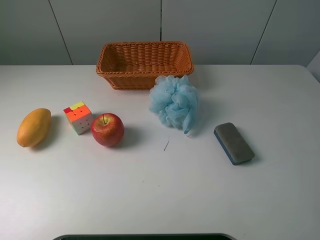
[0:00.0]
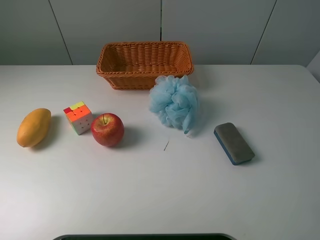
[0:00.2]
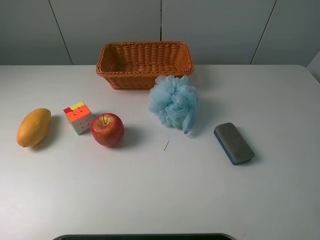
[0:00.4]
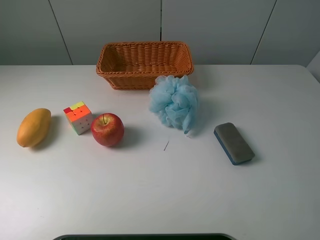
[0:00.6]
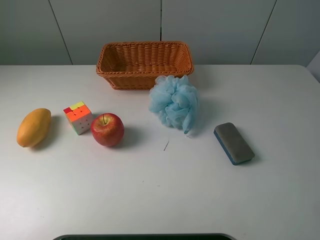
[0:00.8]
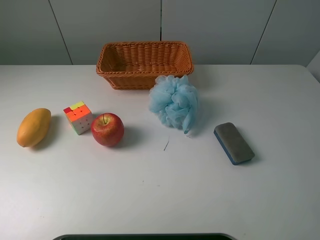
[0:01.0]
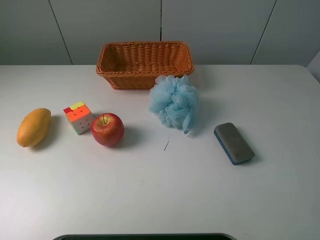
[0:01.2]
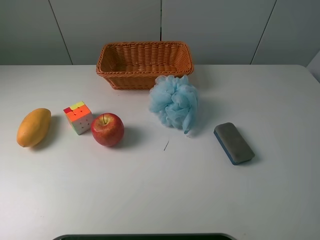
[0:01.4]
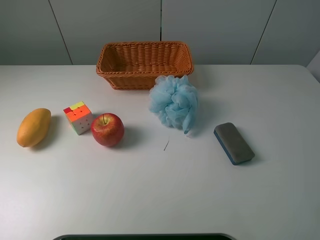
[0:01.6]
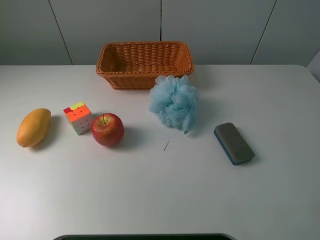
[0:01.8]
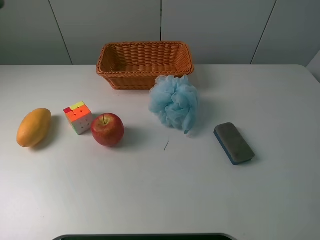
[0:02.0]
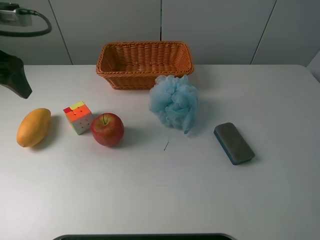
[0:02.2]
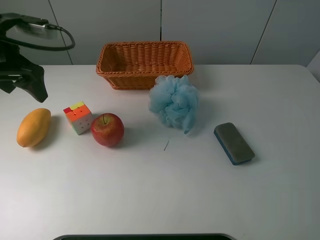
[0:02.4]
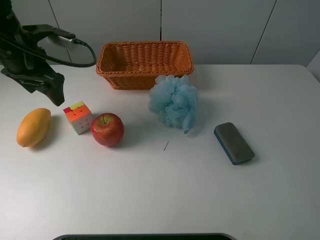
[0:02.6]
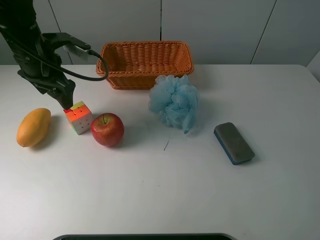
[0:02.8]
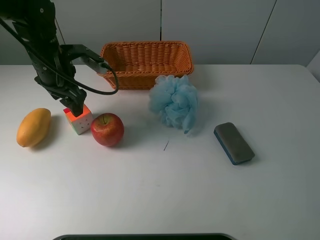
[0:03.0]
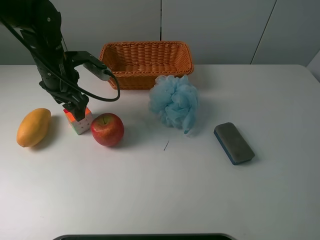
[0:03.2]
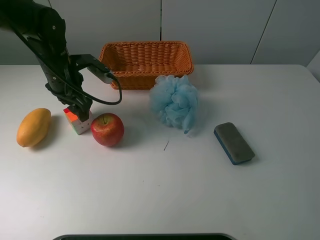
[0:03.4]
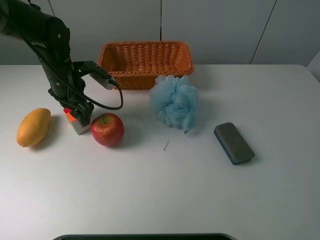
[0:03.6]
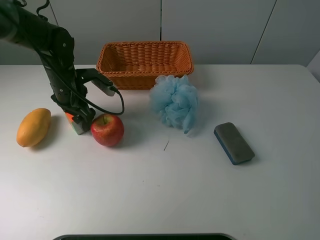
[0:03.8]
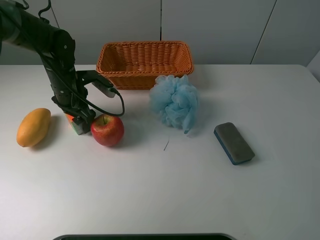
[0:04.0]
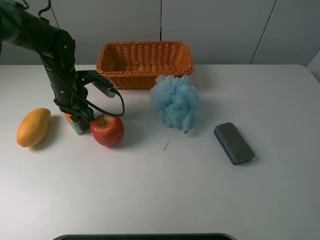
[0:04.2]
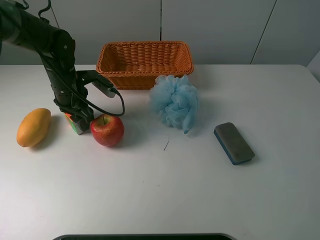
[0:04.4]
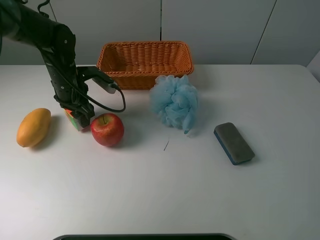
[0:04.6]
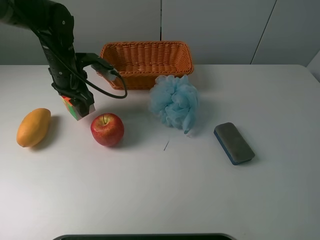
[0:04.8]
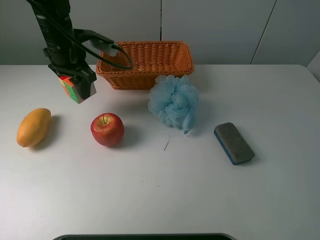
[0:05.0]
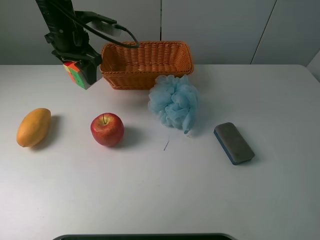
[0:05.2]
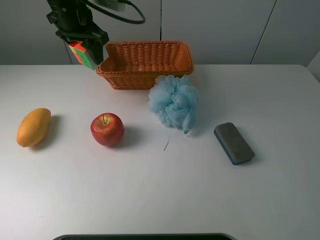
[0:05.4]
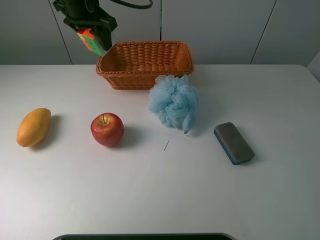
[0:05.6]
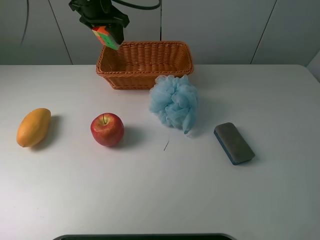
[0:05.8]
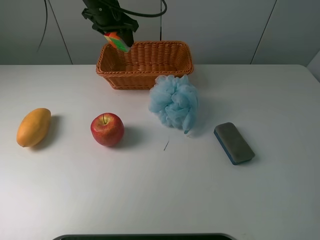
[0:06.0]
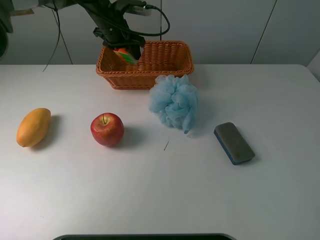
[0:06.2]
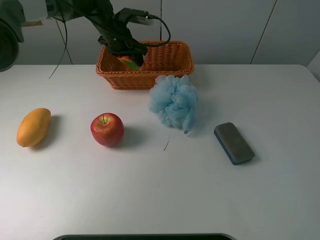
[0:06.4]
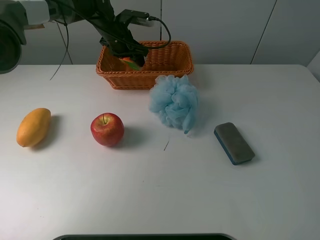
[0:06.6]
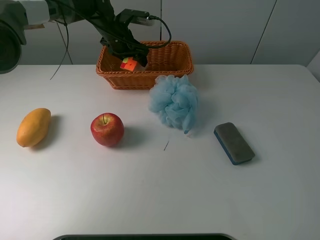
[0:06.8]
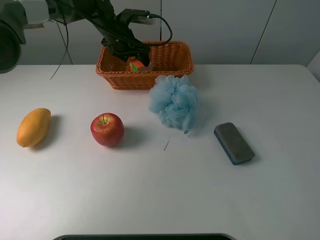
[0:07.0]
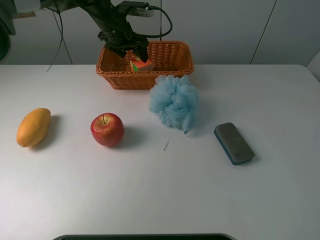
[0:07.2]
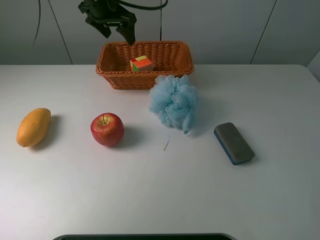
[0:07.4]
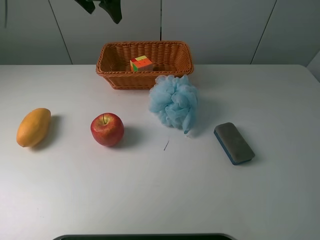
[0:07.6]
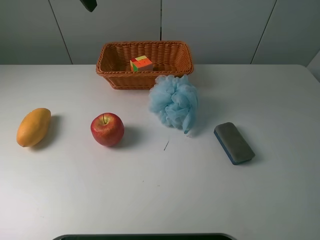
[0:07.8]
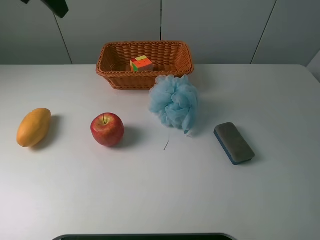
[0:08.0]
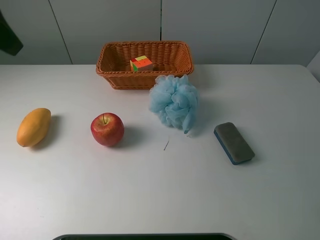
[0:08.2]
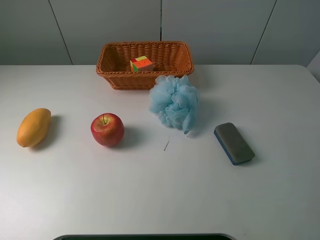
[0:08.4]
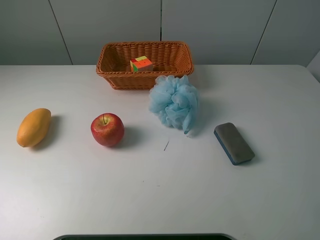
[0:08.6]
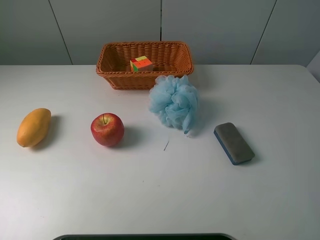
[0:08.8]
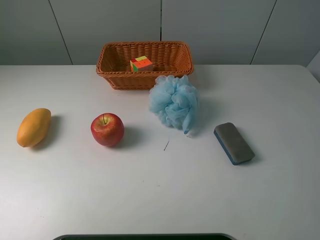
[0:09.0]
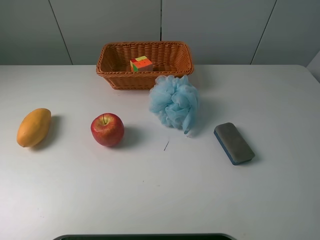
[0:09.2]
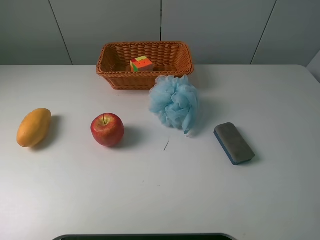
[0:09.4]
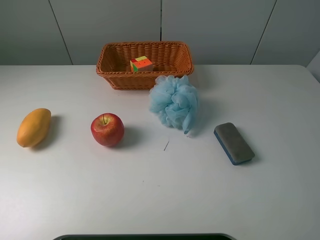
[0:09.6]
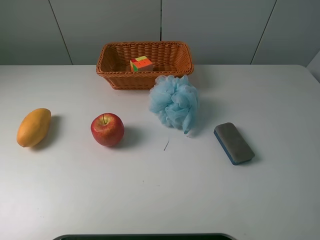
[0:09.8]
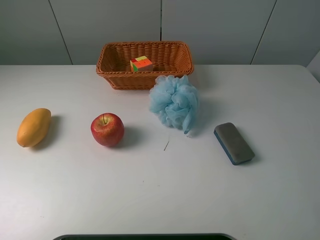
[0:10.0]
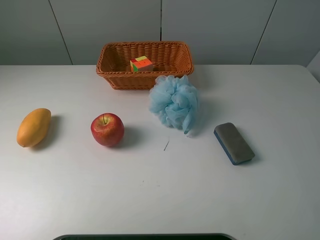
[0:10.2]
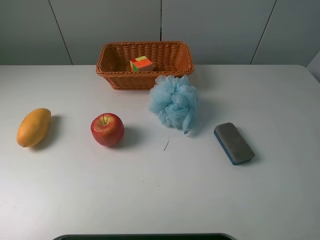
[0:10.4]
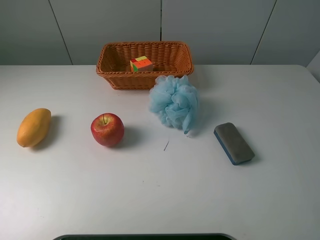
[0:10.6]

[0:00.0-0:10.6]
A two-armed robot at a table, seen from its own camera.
Task of the whole recording: use a picker to grab the item closest to the apple and place it in the basket.
Step, 0:00.0 to 0:04.4: Grasp the Rubik's Cube with the left gripper.
Step, 0:04.6 to 0:07.2: Place the Rubik's Cube into the basket with the left gripper.
0:01.6 to 0:03.0: The left gripper heads forward, downward and to the right, covering about 30 cm.
0:03.0 to 0:04.6: The left gripper shifts about 5 cm downward, and closes.
0:04.6 to 0:06.0: The left gripper heads upward, forward and to the right, covering approximately 20 cm.
0:06.0 to 0:07.6: The left gripper moves upward, roughly 10 cm, and opens up.
0:07.6 to 0:09.0: The left gripper heads backward and to the left, covering some 40 cm.

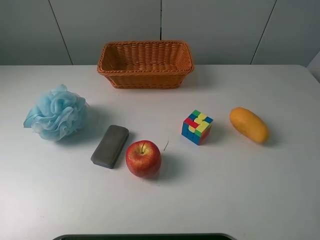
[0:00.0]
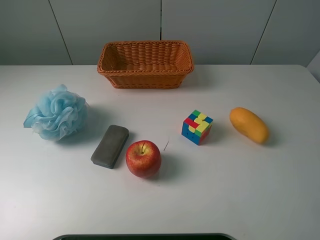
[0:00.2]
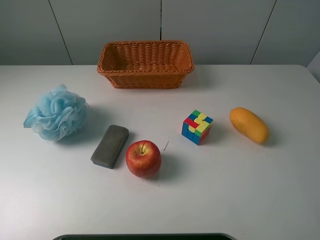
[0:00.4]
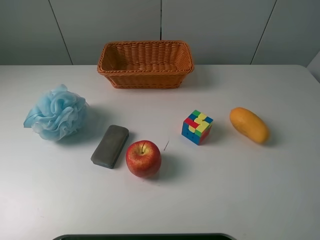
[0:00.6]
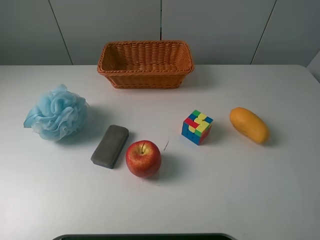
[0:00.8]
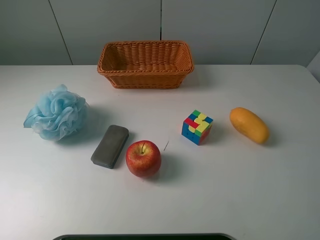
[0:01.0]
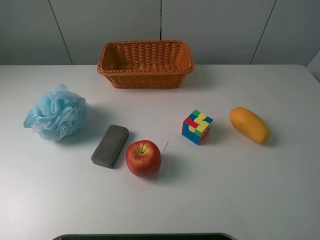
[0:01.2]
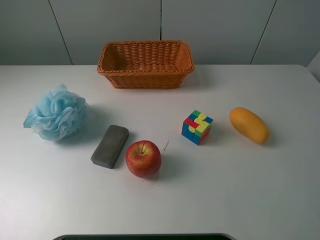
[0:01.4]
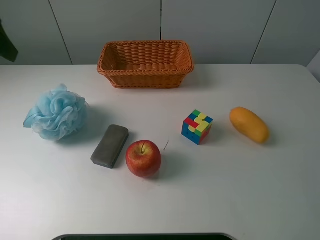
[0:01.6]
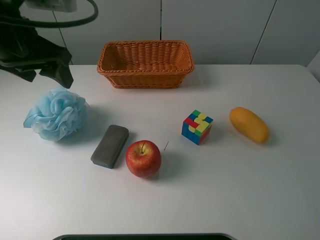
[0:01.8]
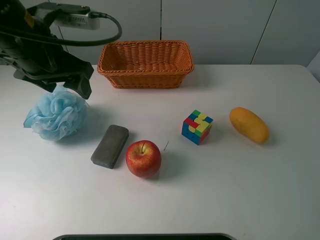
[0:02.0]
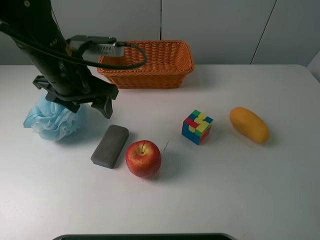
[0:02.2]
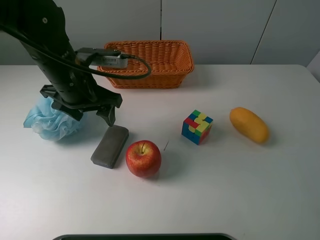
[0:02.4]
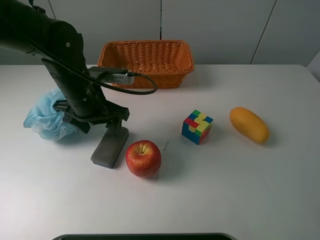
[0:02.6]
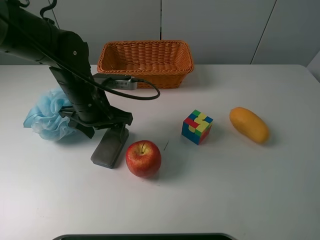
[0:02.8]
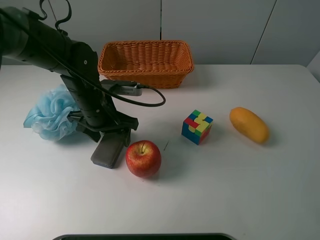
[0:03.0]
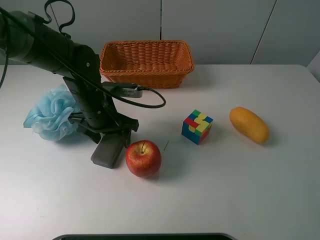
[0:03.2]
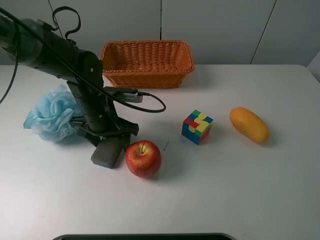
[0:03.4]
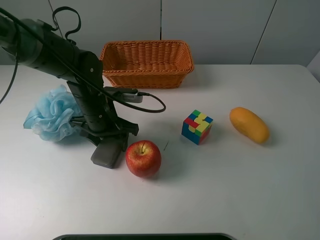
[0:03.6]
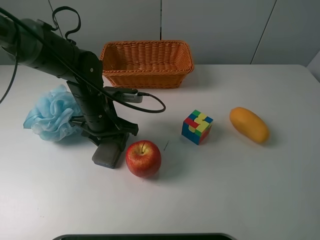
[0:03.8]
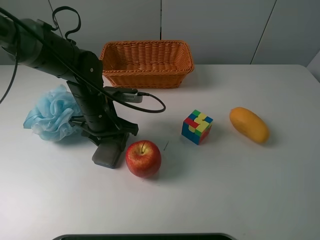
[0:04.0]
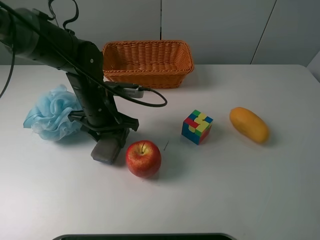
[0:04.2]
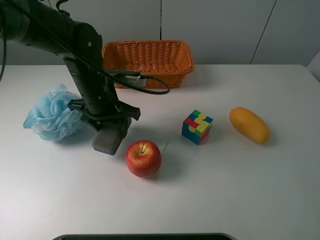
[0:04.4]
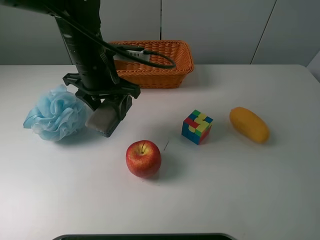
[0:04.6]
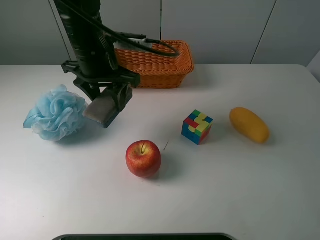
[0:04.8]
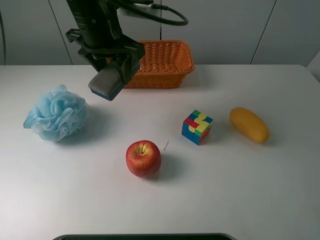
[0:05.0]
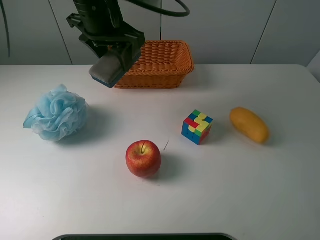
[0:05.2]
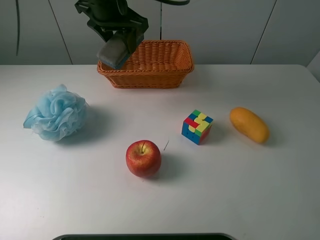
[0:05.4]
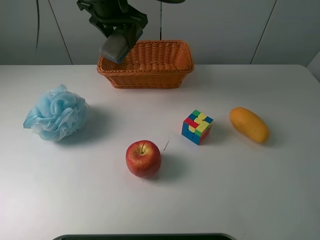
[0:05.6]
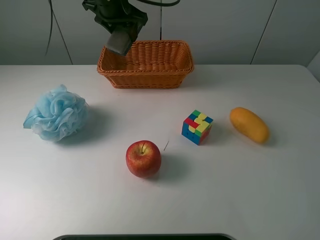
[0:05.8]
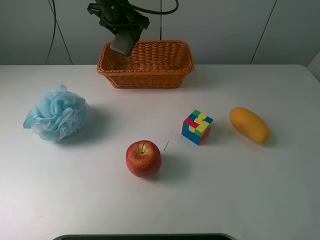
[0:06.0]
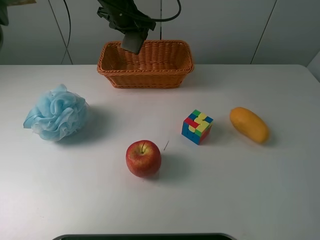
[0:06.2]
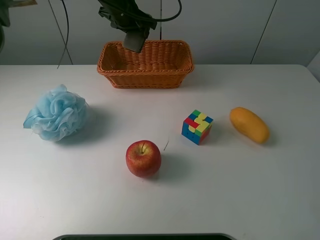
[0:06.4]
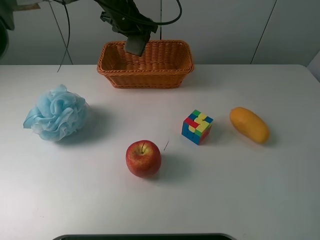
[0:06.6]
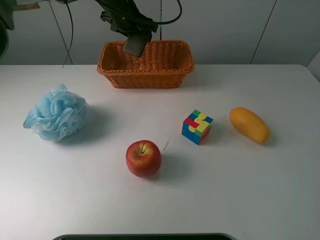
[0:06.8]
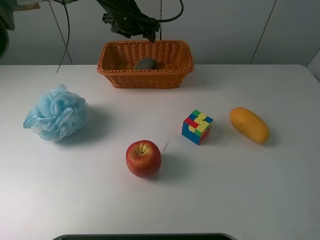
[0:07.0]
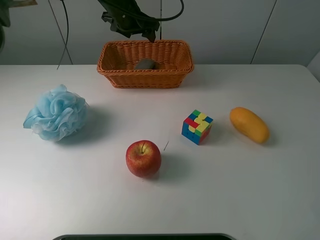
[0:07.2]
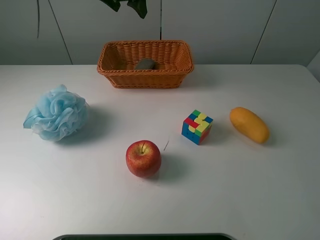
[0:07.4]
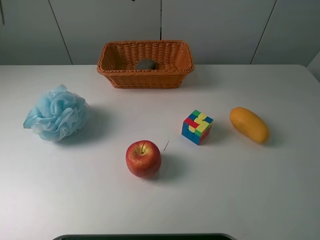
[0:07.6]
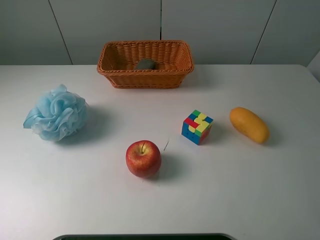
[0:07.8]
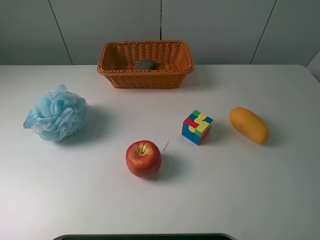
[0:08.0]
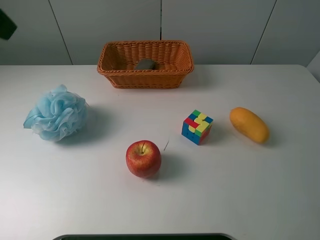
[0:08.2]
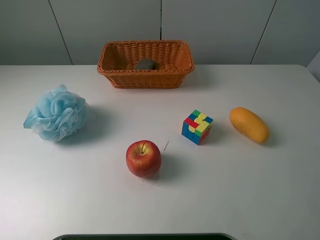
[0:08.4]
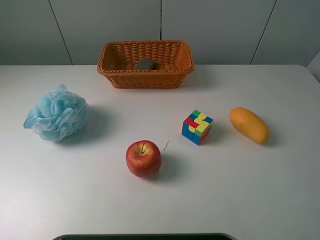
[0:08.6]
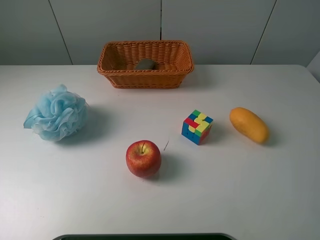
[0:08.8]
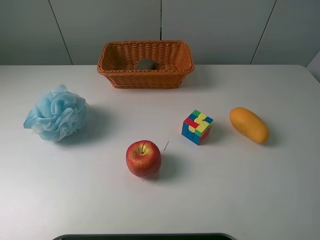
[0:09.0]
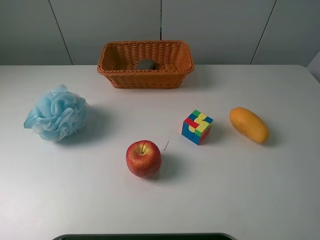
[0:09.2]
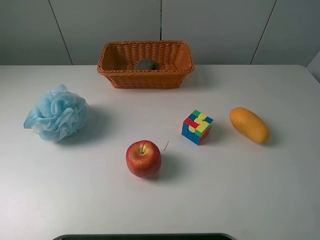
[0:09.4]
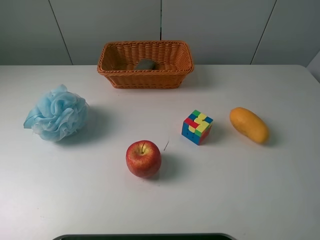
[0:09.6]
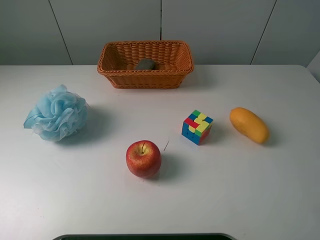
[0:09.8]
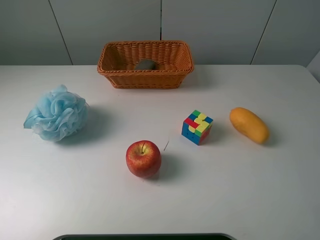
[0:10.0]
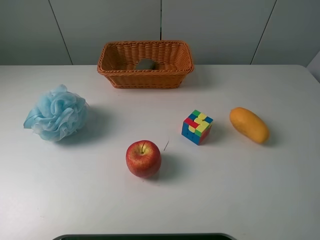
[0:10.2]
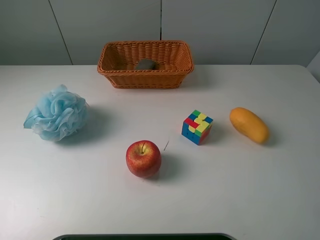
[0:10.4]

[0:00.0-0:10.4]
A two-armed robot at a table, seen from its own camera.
Task of the whole recording: use a picker to grab the item closest to the apple and place it in the basket.
Step, 0:00.0 to 0:04.0: Grasp the chalkboard eraser with the left gripper.
Step, 0:04.2 to 0:07.0: Place the chalkboard eraser into the basket with the left gripper.
0:00.0 to 0:01.4: The left gripper goes roughly 20 cm forward.
0:01.4 to 0:03.0: The left gripper moves downward and to the right, some 30 cm.
0:03.0 to 0:04.4: The left gripper closes its fingers.
0:04.4 to 0:06.0: The left gripper is displaced forward and upward by approximately 20 cm.
0:06.0 to 0:07.4: The left gripper goes approximately 10 cm upward, and opens its fingers.
0:07.4 to 0:09.0: The left gripper moves backward and to the left, some 50 cm.
